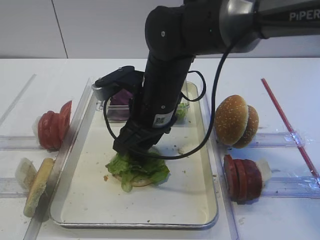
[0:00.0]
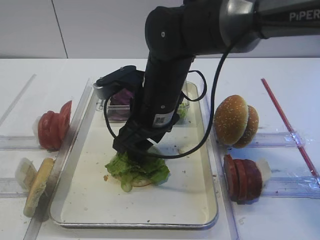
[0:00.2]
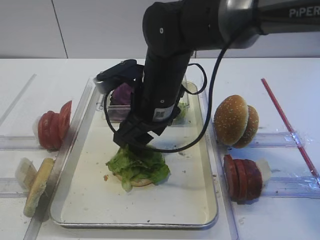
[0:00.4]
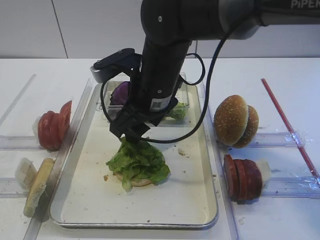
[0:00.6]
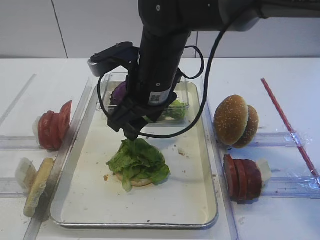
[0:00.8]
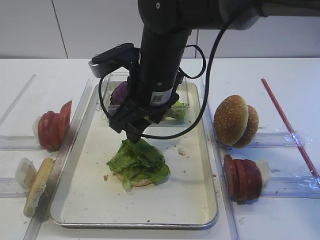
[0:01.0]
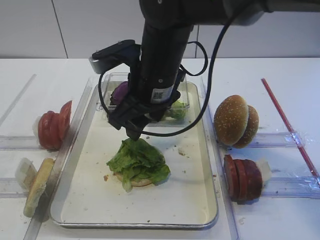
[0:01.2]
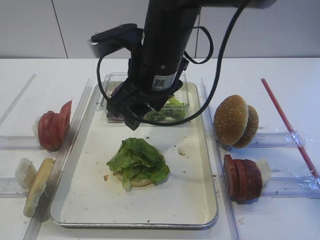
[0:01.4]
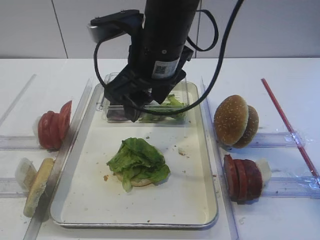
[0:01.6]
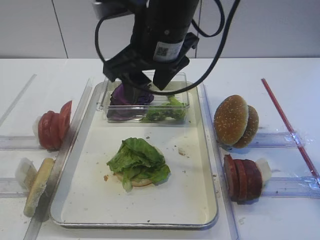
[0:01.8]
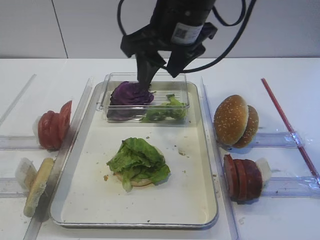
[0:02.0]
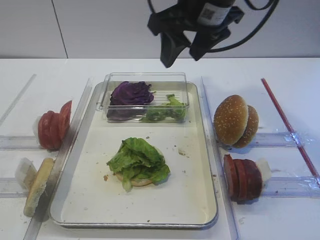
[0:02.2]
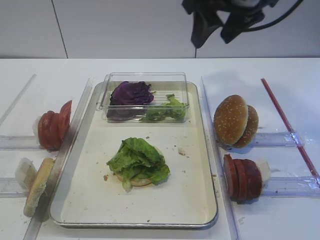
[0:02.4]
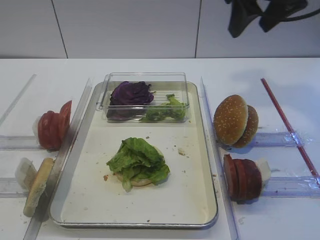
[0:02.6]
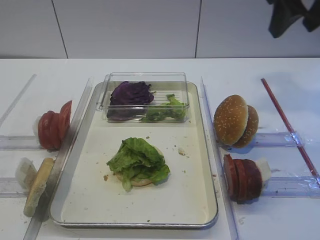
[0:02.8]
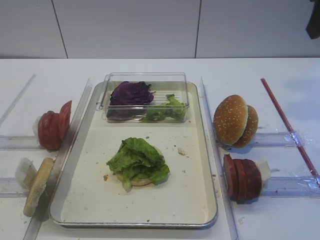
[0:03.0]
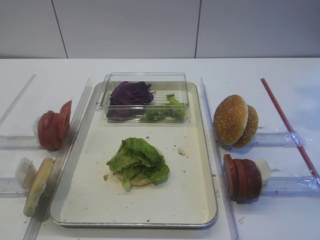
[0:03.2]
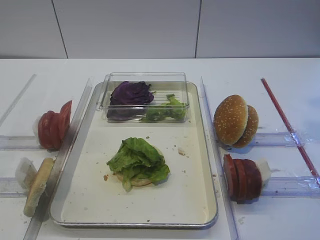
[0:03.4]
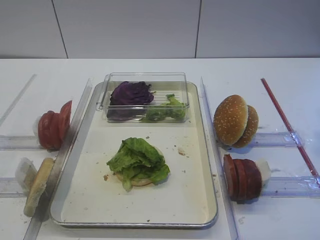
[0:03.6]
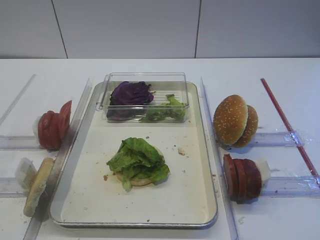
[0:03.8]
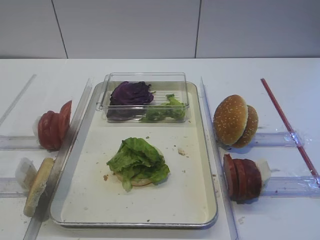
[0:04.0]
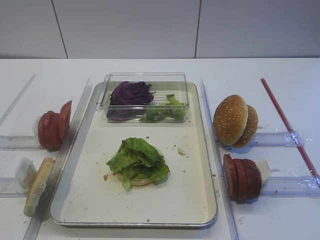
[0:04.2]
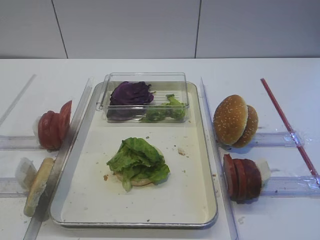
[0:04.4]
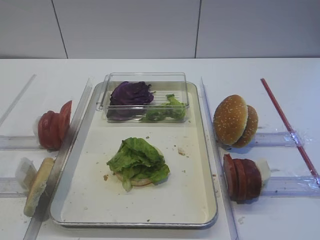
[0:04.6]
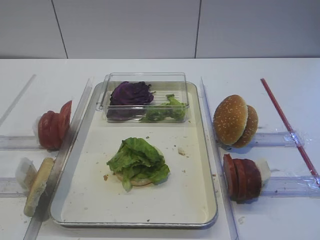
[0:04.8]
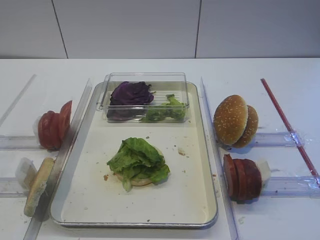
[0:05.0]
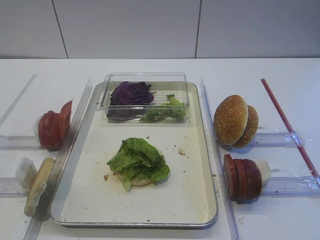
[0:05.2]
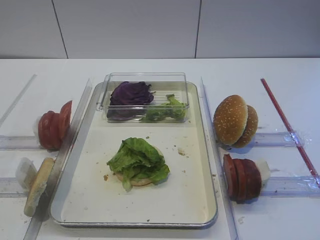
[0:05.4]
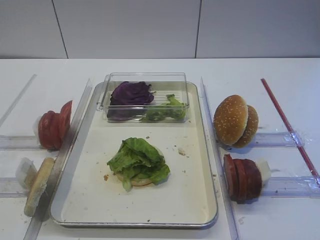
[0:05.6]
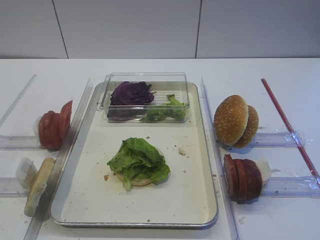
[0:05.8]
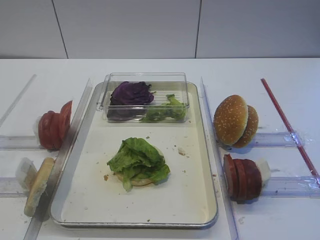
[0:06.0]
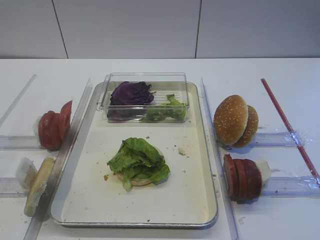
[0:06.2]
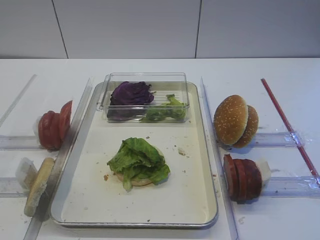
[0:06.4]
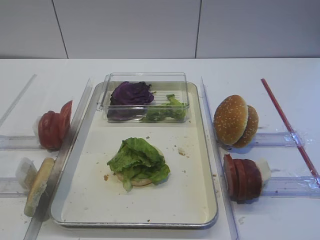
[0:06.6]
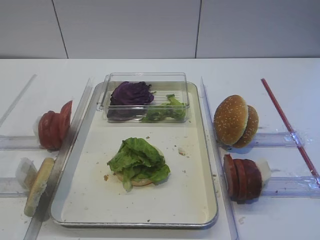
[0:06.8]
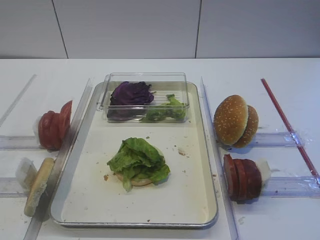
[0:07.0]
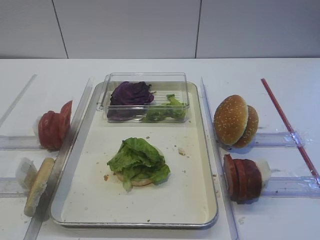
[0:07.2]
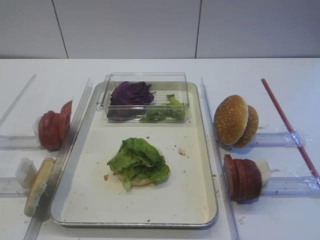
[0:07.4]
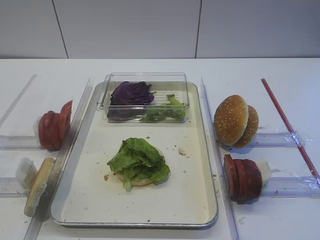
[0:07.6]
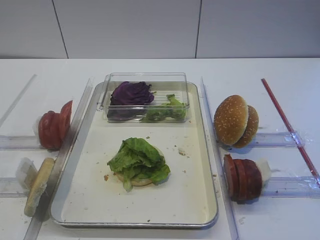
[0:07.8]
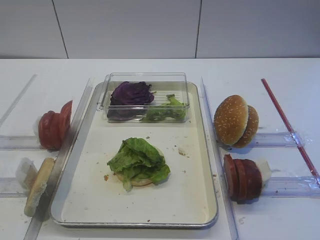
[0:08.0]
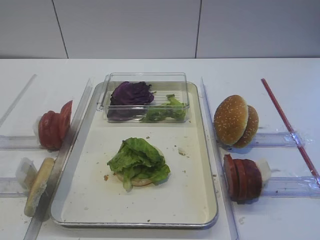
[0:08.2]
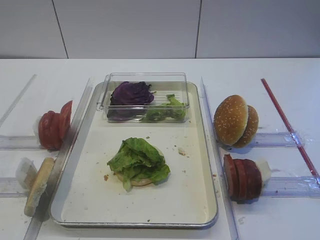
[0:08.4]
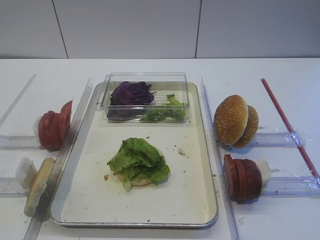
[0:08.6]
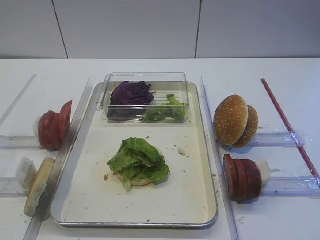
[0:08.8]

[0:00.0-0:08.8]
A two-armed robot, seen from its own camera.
0:00.0 to 0:01.4: The right gripper goes roughly 5 cm upward.
0:01.4 to 0:03.0: The right gripper moves to the right and upward, about 30 cm.
0:05.8 to 0:08.8: Both grippers stay about where they are.

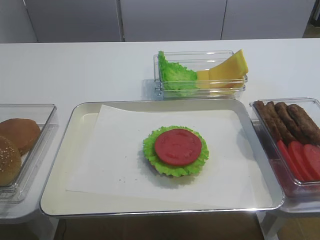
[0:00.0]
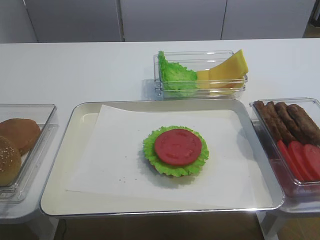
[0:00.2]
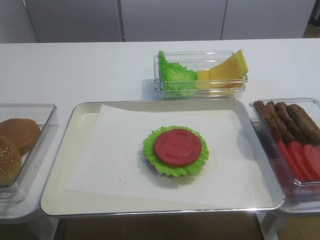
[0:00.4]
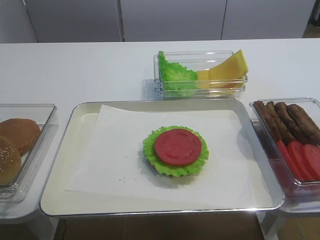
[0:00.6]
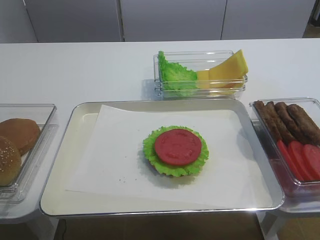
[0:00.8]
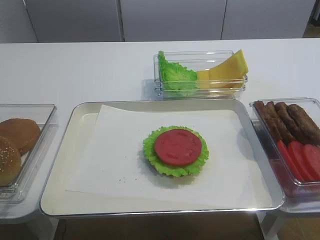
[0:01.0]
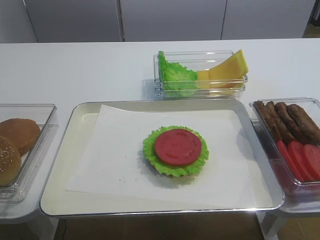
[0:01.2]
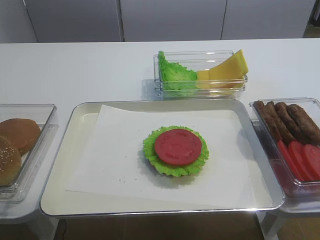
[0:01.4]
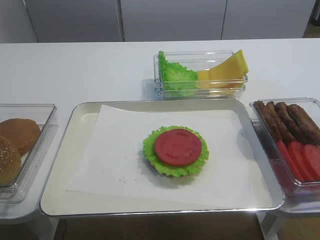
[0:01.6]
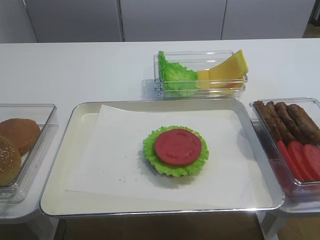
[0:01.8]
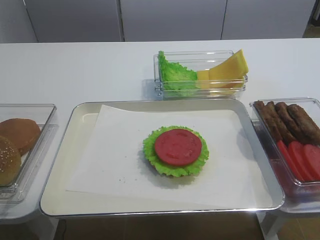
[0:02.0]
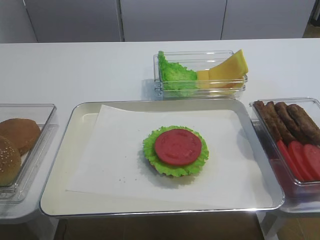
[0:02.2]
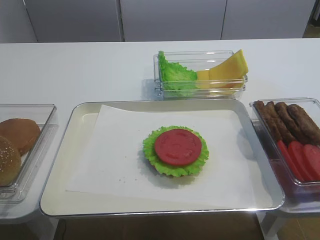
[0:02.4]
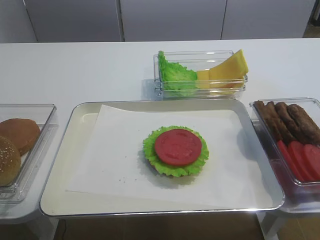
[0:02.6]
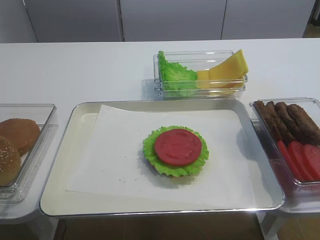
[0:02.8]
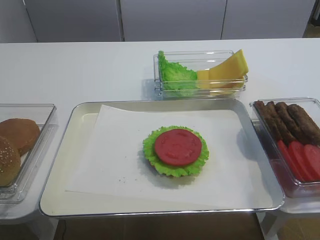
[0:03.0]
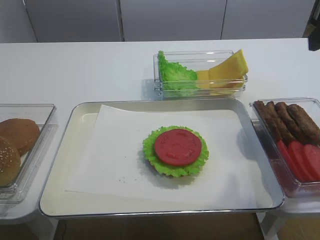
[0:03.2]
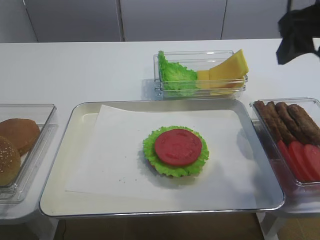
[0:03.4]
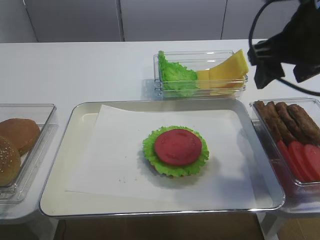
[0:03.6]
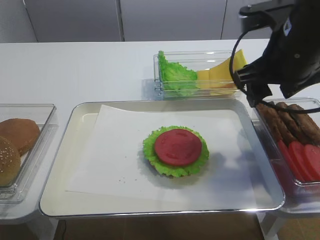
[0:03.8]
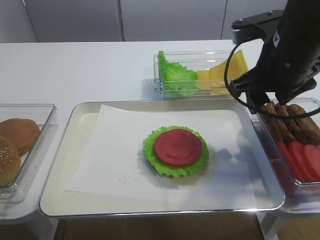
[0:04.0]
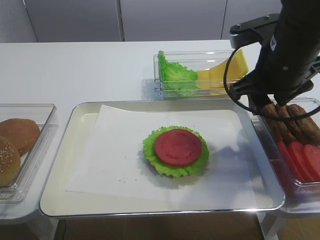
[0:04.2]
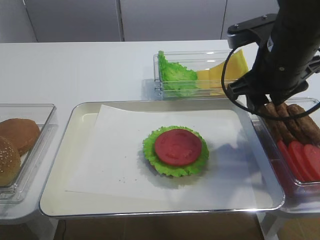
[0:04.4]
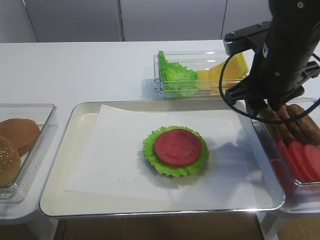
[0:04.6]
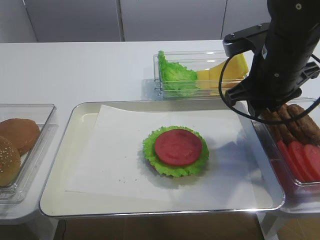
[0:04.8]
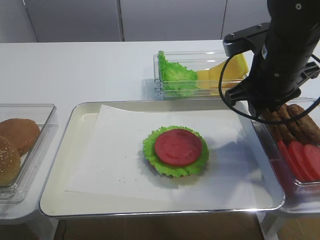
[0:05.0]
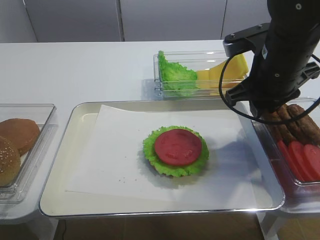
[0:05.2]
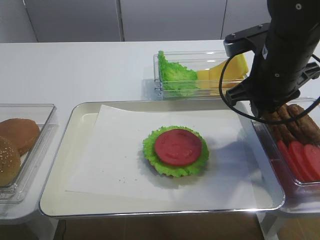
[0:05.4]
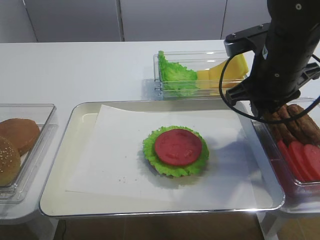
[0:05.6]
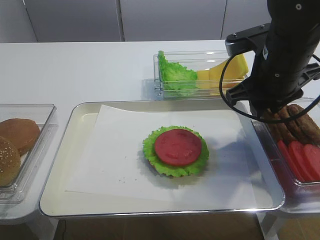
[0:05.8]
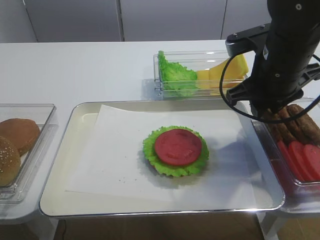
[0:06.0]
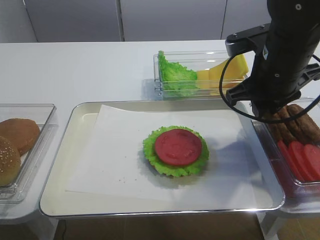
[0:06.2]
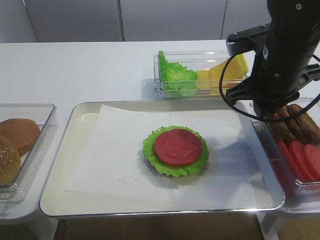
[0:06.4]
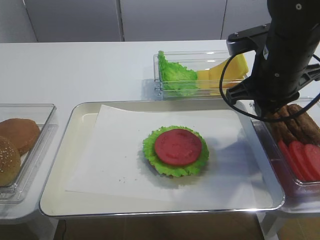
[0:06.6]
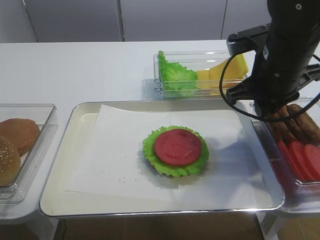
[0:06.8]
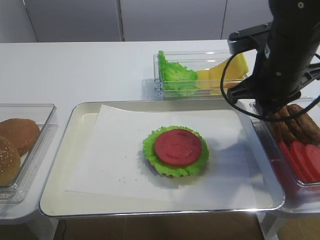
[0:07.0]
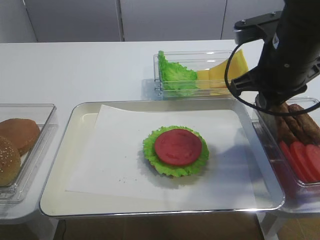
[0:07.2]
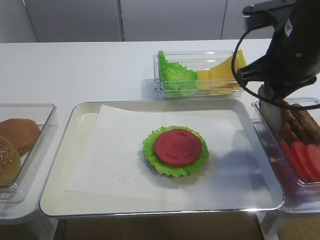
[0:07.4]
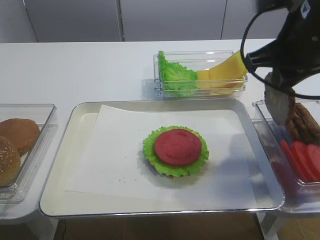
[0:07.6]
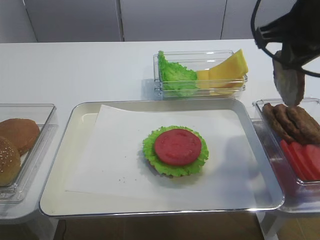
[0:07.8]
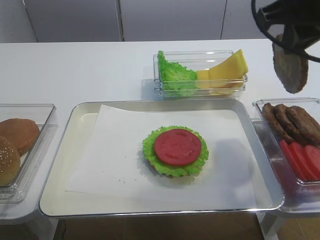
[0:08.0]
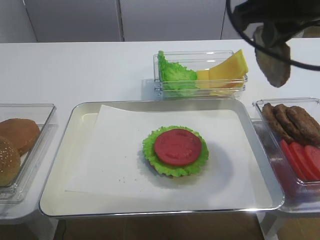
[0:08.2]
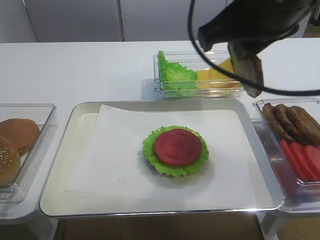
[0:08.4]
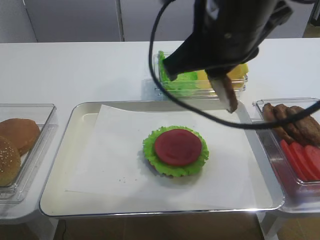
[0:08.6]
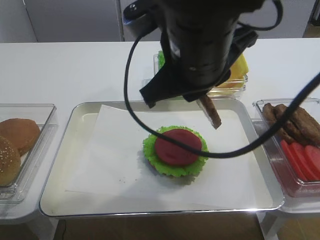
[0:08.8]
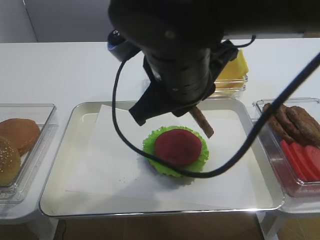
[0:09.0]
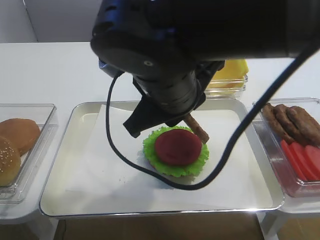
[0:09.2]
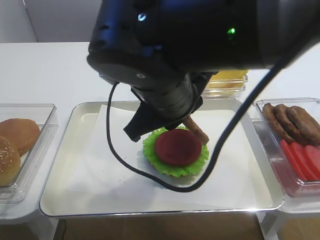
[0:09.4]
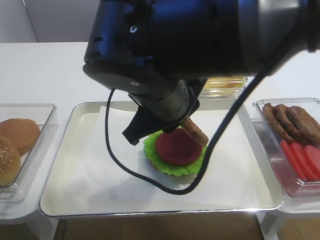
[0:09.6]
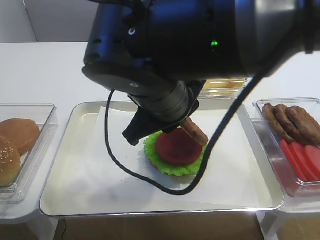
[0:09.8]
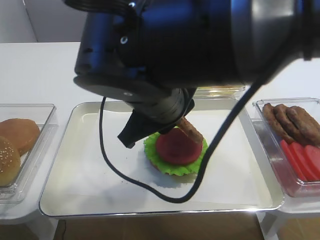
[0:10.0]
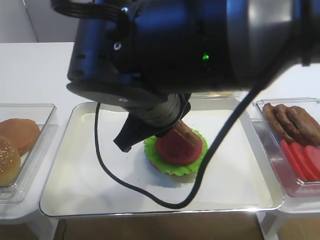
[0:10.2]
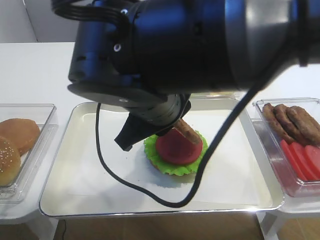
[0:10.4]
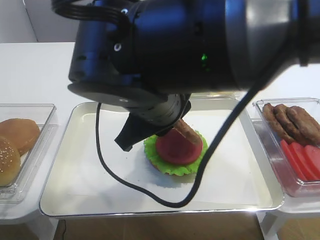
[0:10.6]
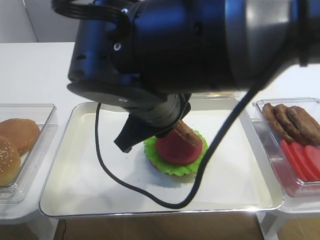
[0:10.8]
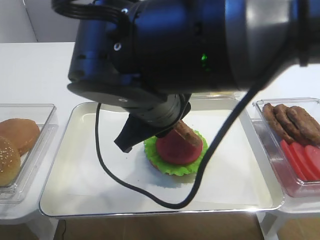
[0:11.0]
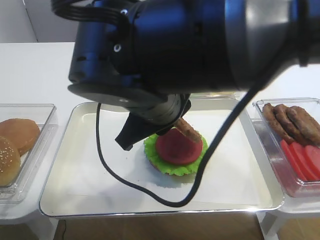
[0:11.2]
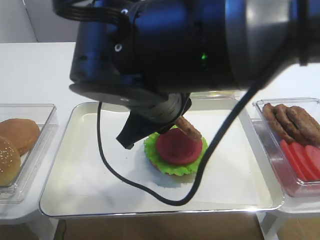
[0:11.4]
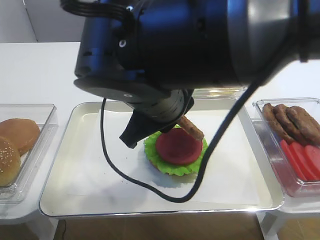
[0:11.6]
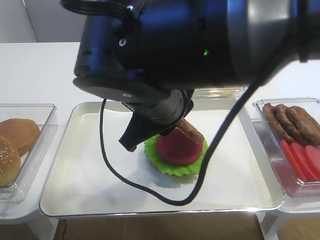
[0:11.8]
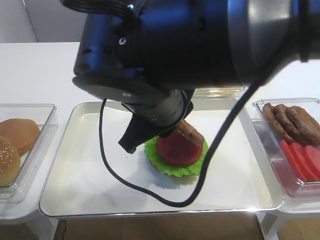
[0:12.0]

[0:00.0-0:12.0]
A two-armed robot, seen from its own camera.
Step, 0:00.0 to 0:07.6: Pick up the cutlet with the right gripper.
0:01.6 to 0:03.0: The right gripper heads forward and upward, covering about 20 cm, and opens up.
0:03.0 to 0:04.4: The right gripper goes some 15 cm forward, to the left and downward.
0:04.4 to 0:06.0: The two grippers keep their place.
0:06.0 to 0:07.6: The right gripper travels upward by some 5 cm.
0:07.6 to 0:09.0: The right gripper shifts approximately 15 cm to the left.
0:10.4 to 0:12.0: The two grippers keep their place.

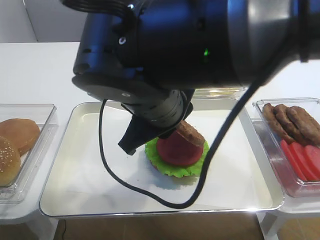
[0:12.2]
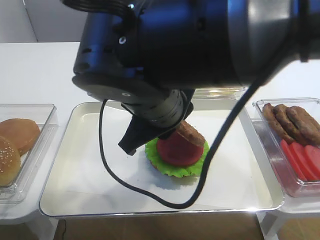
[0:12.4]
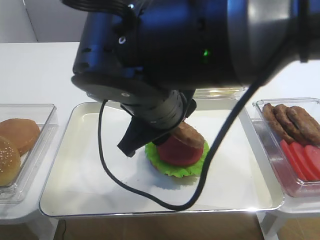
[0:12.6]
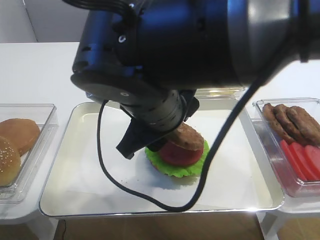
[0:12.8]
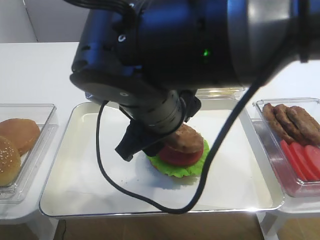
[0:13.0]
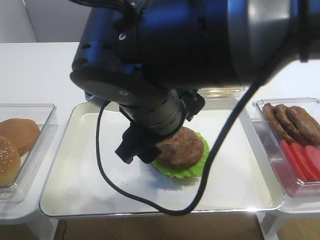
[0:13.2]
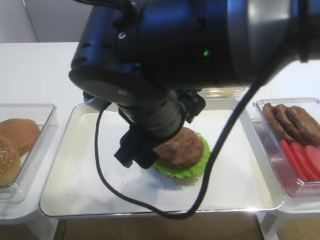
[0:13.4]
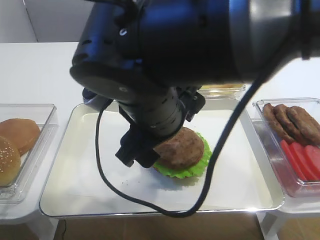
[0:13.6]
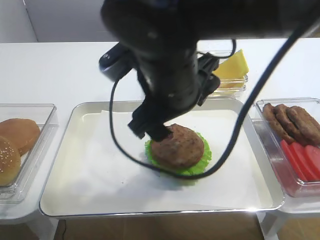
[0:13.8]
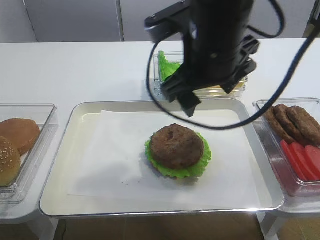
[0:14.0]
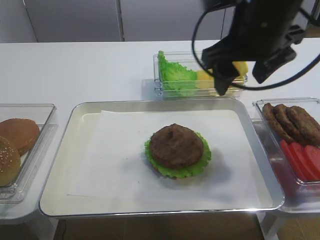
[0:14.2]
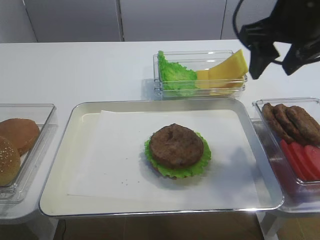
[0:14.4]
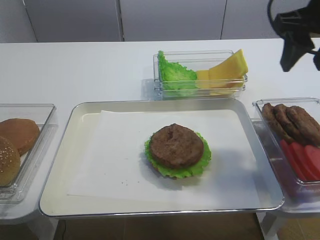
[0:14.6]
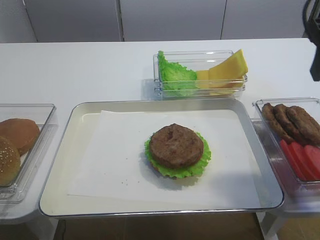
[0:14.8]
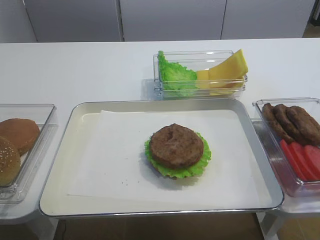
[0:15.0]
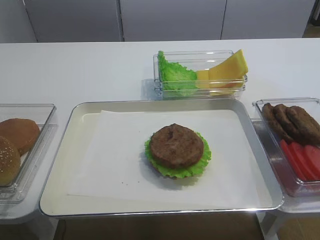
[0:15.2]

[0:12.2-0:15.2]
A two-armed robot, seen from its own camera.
0:12.2 to 0:13.8: The right gripper opens.
0:13.8 to 0:15.2: The right gripper shifts approximately 25 cm to the right, and closes up.
